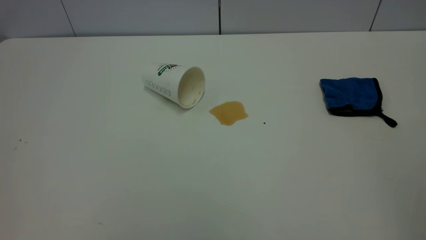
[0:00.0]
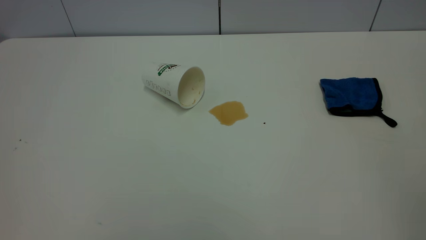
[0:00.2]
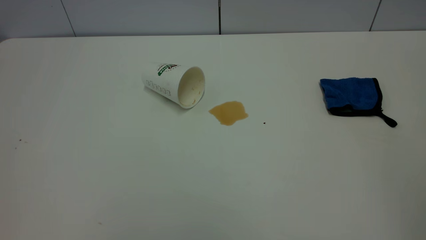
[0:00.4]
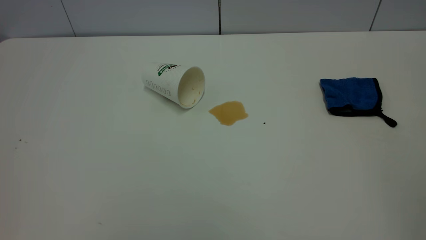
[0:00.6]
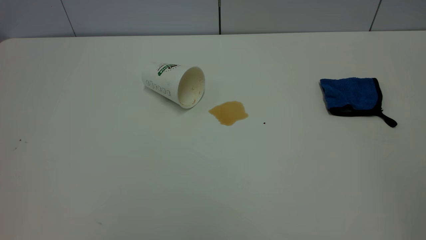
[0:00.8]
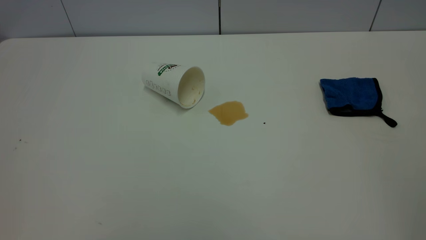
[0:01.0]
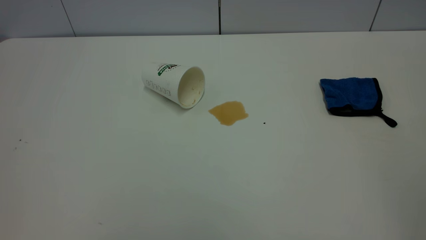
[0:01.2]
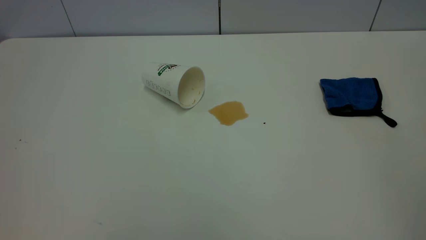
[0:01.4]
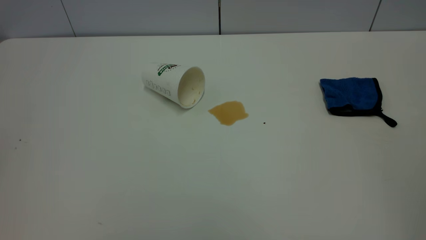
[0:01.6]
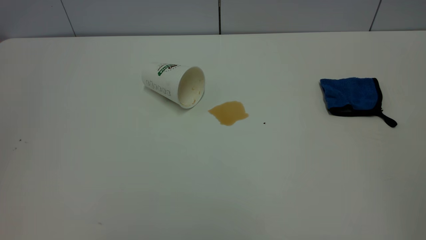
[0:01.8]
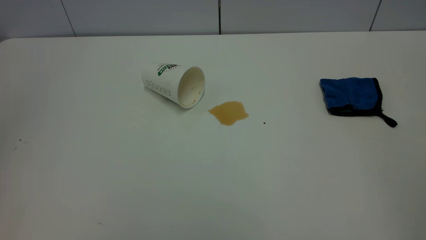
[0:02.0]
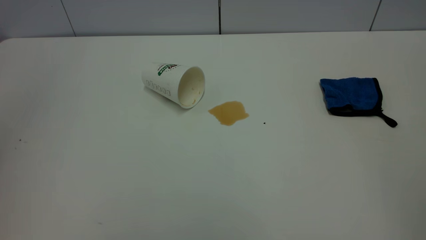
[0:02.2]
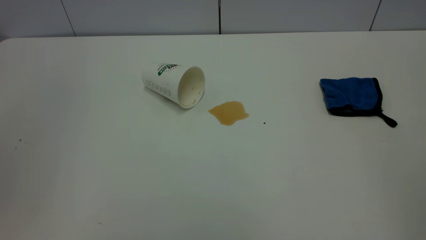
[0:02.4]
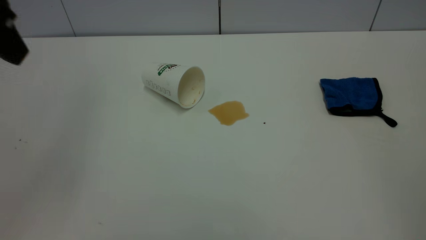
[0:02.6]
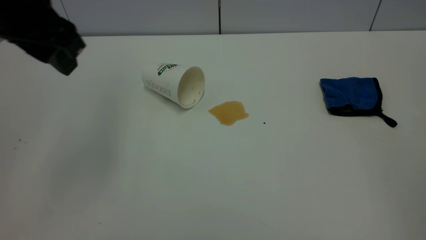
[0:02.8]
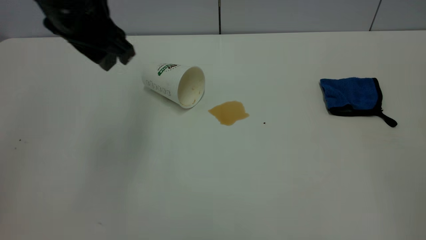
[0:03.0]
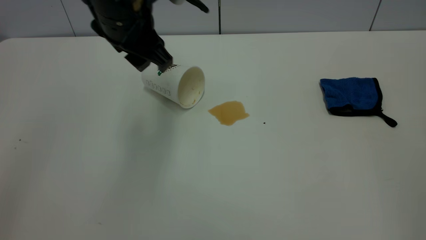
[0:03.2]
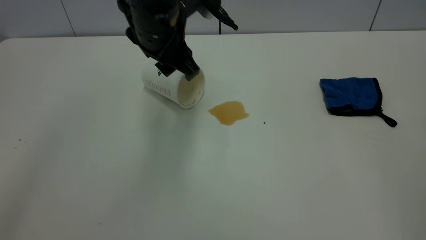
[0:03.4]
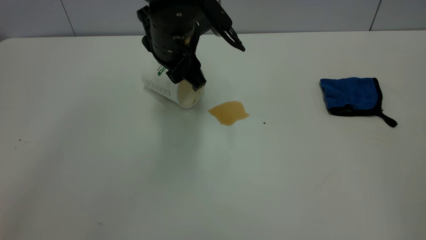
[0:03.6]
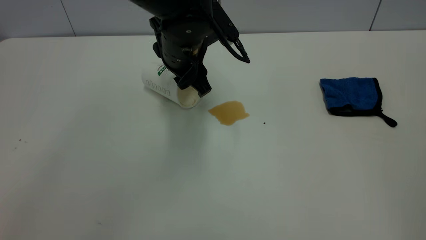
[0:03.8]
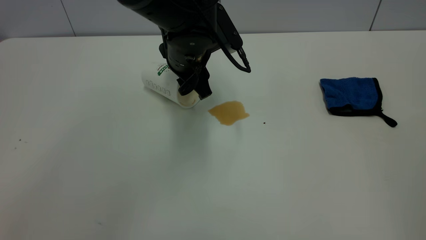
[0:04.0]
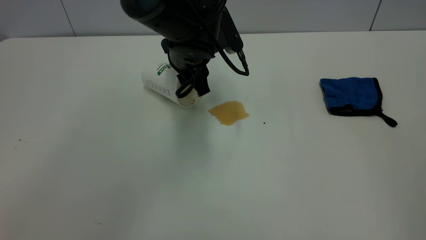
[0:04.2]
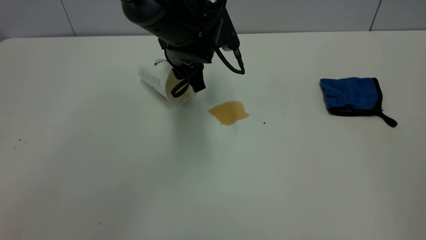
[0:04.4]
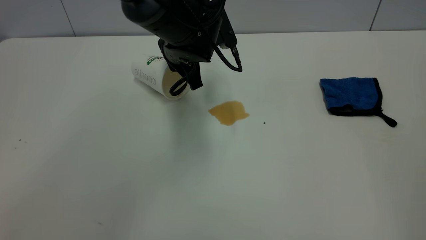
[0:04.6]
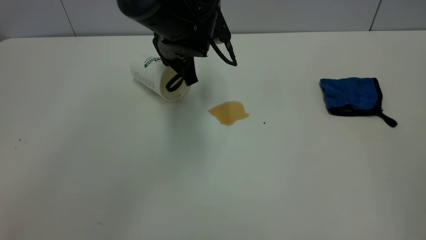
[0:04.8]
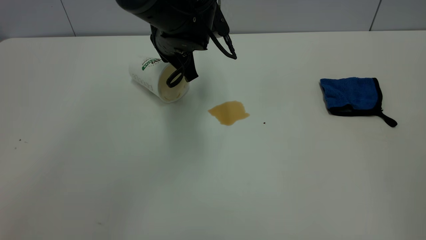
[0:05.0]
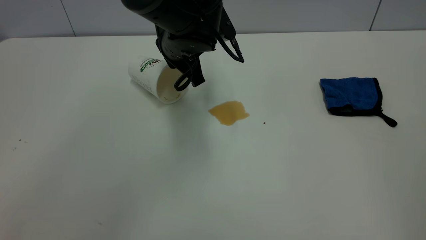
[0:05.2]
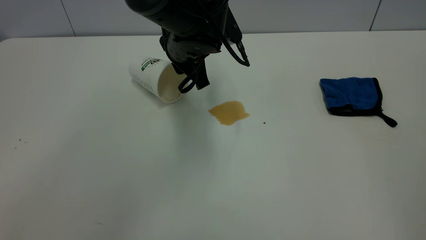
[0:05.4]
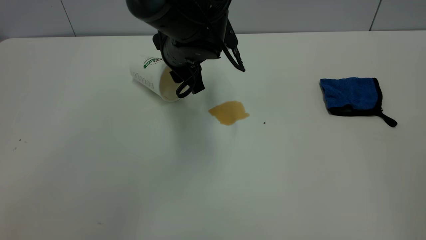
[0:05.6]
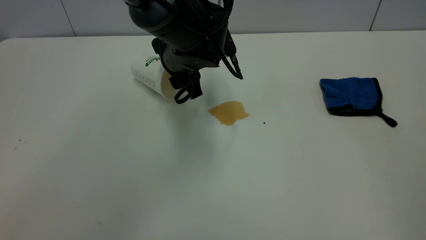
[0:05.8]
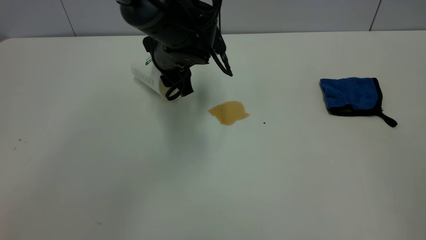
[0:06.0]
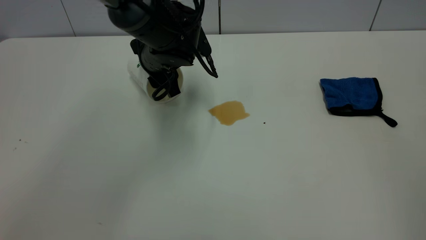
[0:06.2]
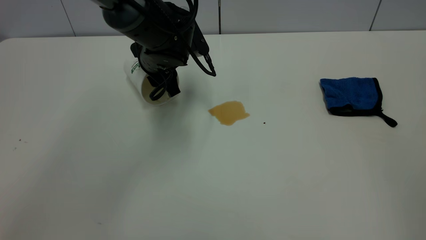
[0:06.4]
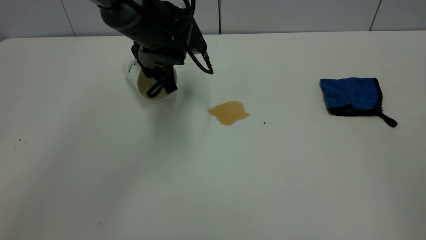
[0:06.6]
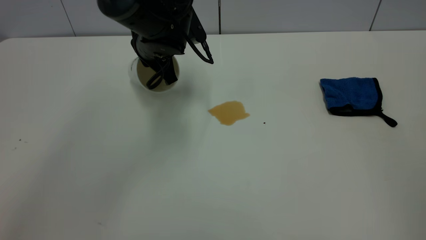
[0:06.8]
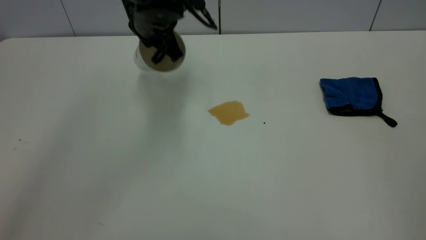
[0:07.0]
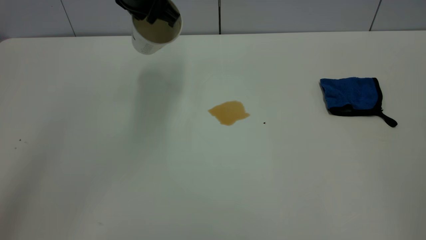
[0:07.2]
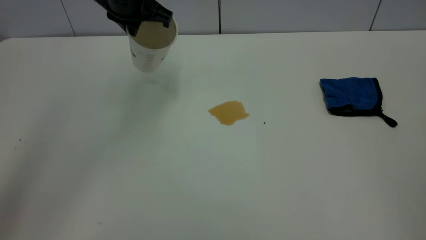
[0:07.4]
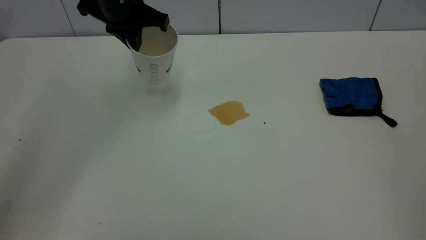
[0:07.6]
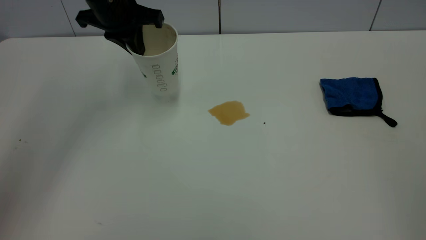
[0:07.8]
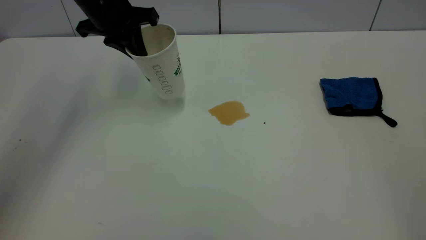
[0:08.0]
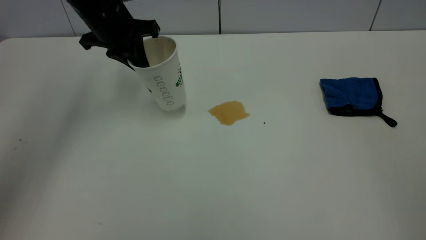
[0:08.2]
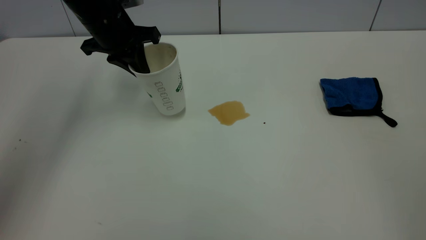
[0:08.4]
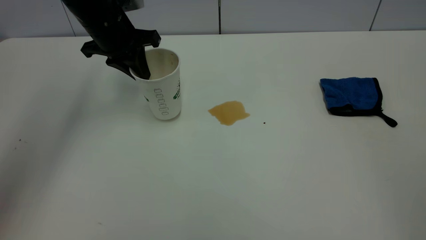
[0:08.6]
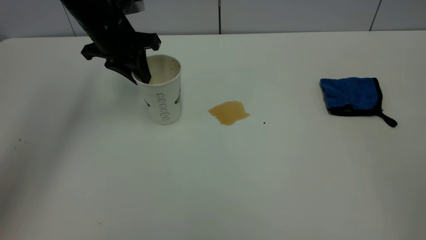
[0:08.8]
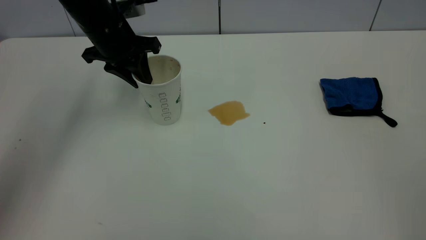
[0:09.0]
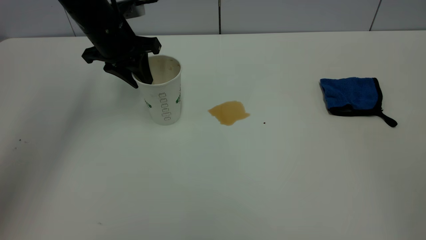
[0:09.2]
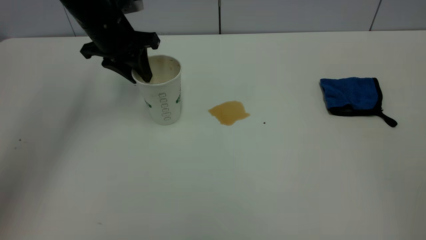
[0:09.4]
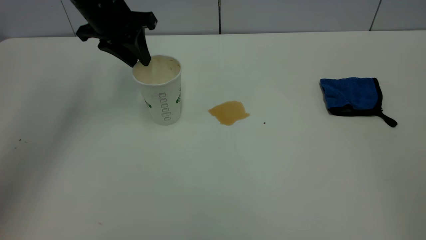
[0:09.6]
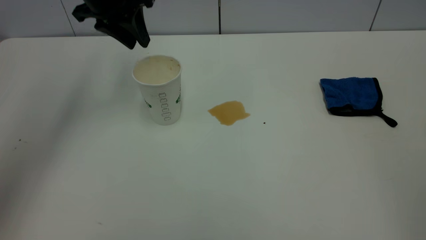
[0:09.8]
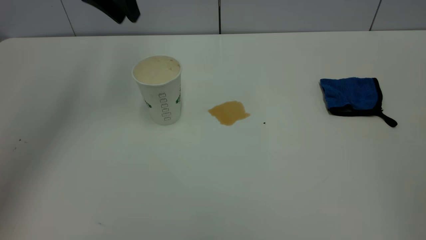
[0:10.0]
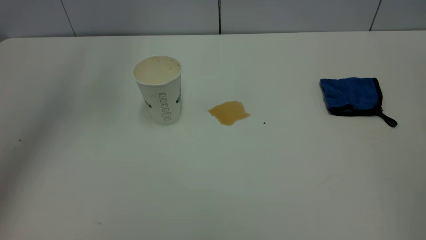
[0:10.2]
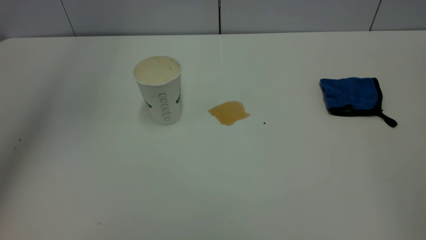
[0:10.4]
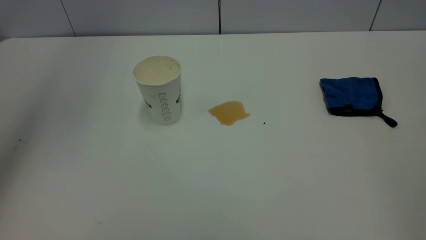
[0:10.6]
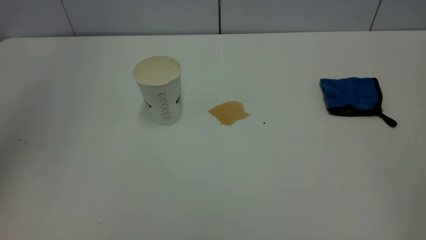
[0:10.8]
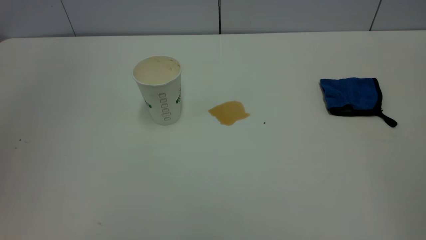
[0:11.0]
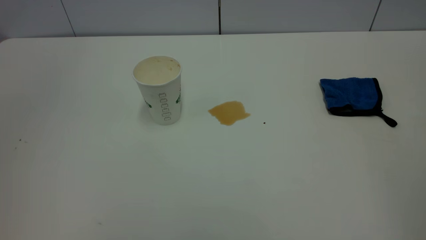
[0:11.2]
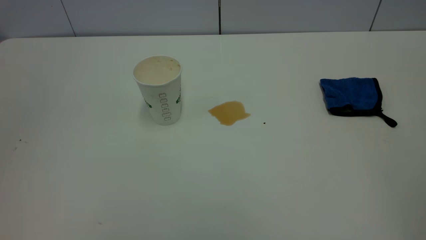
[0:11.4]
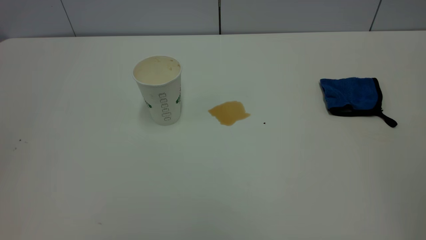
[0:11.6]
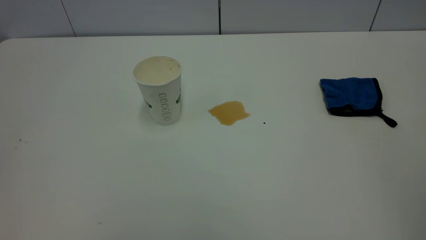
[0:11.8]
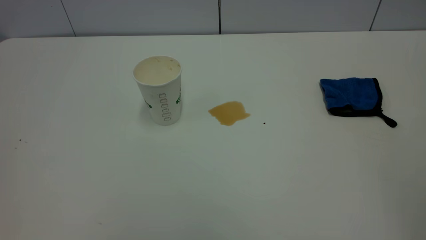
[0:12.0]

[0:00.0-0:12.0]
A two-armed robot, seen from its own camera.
Task of the whole recording: the left gripper pick up the fallen cup and place it upright, the right gripper grasp the blue rag and wipe the tea stain on the table, the right gripper put the blue rag back in its original position.
Step, 0:00.0 to 0:09.6: Stand the paper cup upright.
0:01.6 to 0:03.0: The left gripper moves forward, to the right and downward, approximately 35 cm.
0:03.0 to 0:04.4: The left gripper shifts roughly 20 cm downward, to the right and forward.
0:04.4 to 0:06.0: The left gripper closes, then opens again.
0:06.0 to 0:07.6: The left gripper is displaced upward and to the left by some 15 cm, and closes its fingers.
0:07.6 to 0:09.0: The left gripper moves downward, approximately 5 cm, and opens up.
0:09.0 to 0:10.4: The left gripper heads upward, covering some 25 cm.
0:10.4 to 0:12.0: The left gripper goes some 40 cm backward.

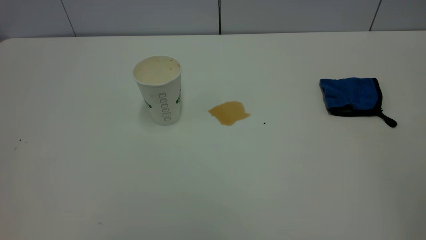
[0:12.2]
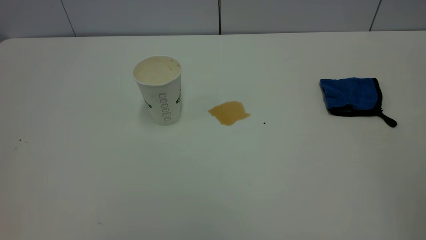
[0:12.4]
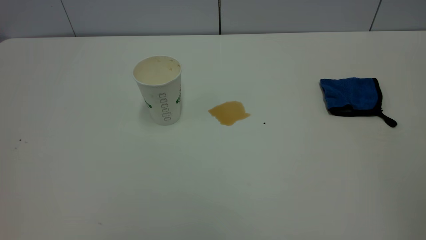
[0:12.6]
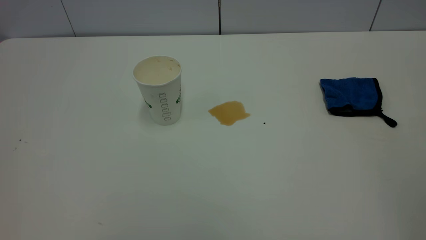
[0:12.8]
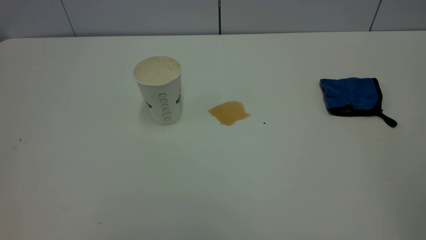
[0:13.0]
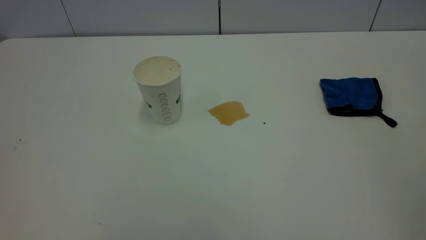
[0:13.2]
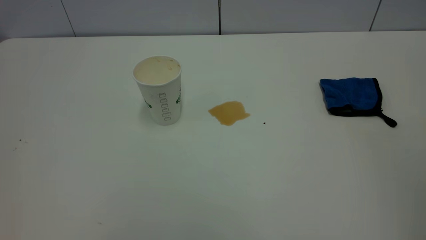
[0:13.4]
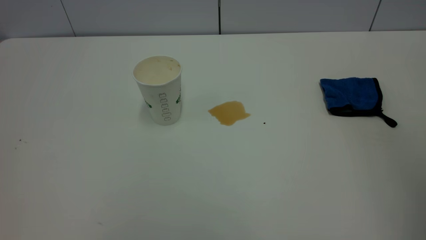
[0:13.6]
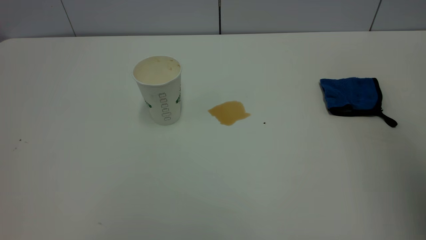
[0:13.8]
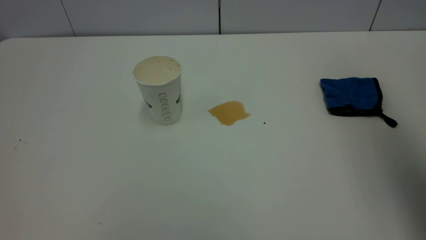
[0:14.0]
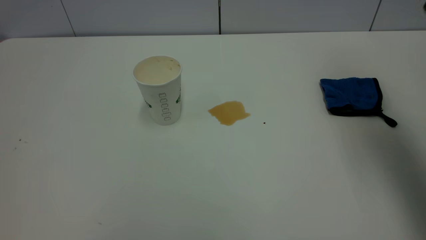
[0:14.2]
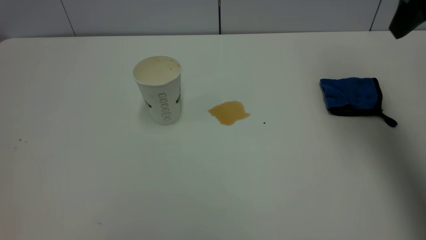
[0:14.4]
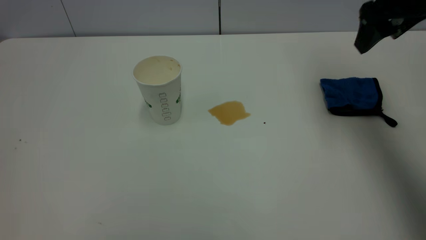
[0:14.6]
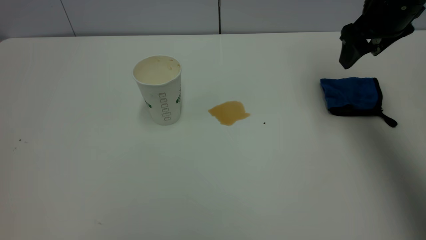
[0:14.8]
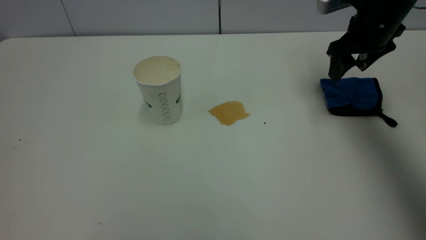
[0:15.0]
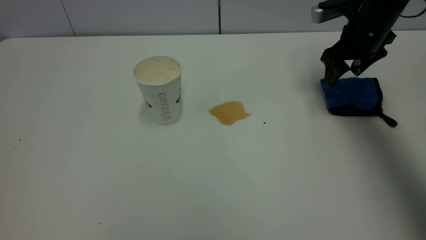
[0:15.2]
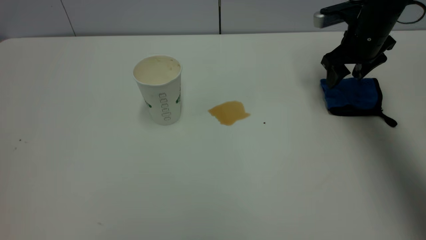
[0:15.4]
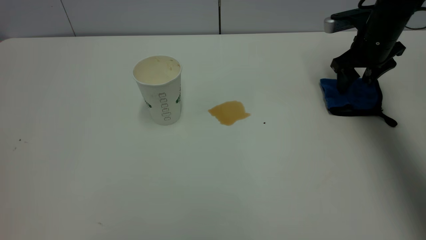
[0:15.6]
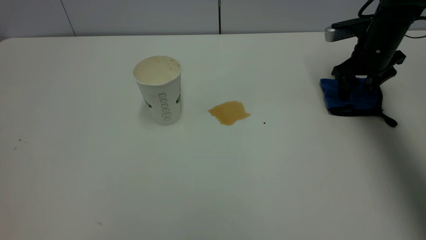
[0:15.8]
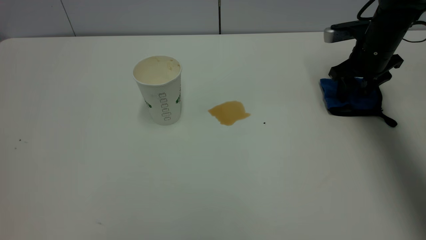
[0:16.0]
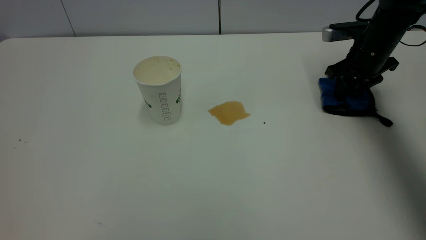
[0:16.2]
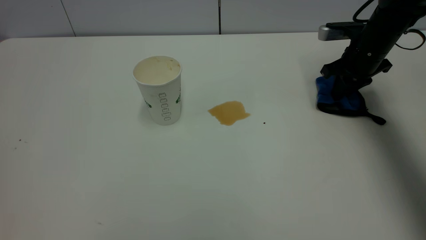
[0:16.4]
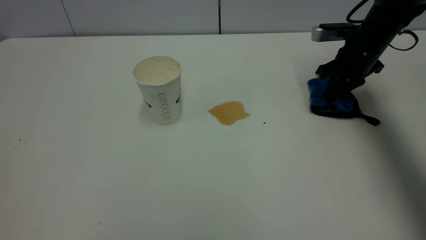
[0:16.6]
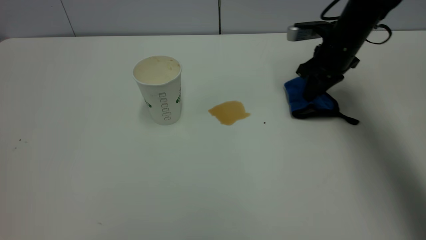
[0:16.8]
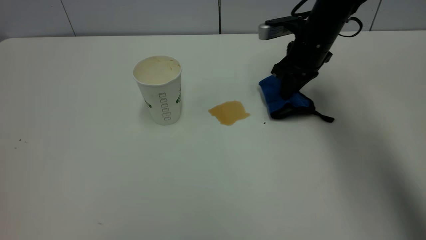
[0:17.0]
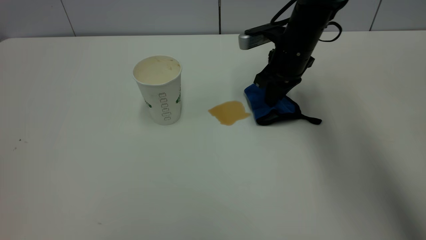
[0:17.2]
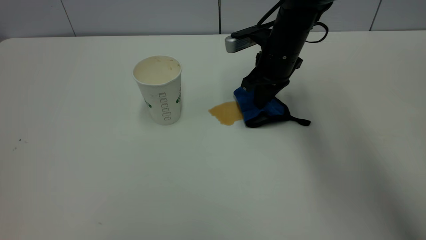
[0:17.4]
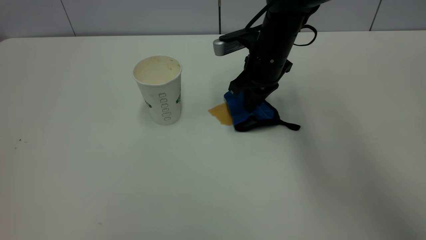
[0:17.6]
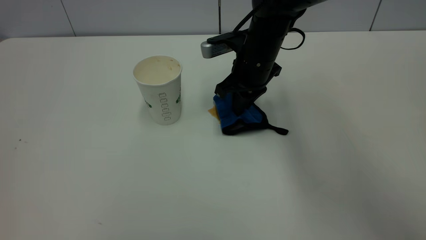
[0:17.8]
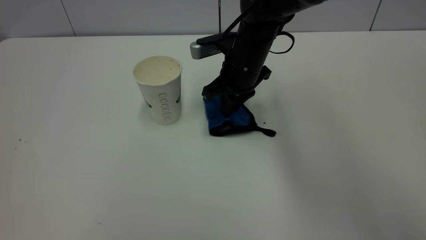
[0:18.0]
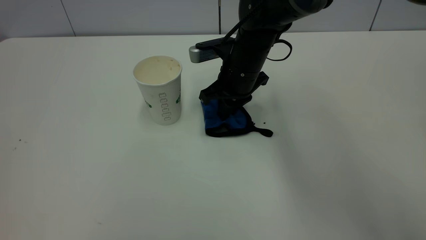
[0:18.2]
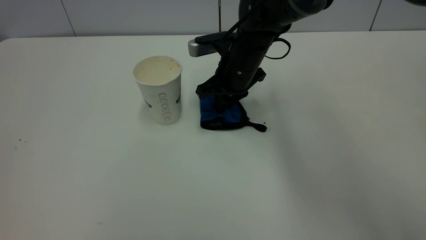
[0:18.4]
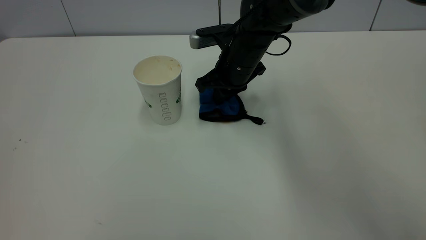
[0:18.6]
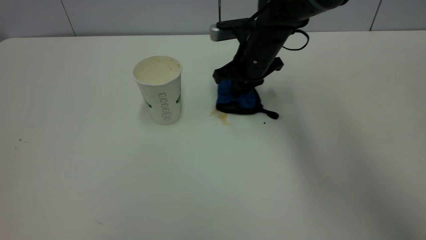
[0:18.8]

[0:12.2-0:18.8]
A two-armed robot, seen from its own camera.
Task of the whole recording: the left gripper pick up the fallen cup and place it upright, the right gripper grasp the blue rag and wipe the tea stain on the table, the right gripper put the blue rag back in its original position.
0:13.8 to 0:15.4: The right gripper is displaced forward and downward by roughly 40 cm.
0:15.4 to 0:17.2: The right gripper moves to the left, some 15 cm, and closes up.
